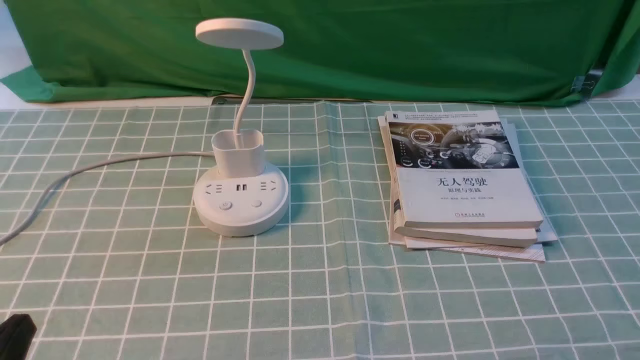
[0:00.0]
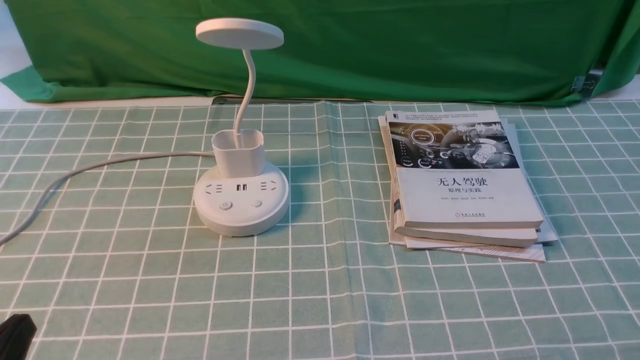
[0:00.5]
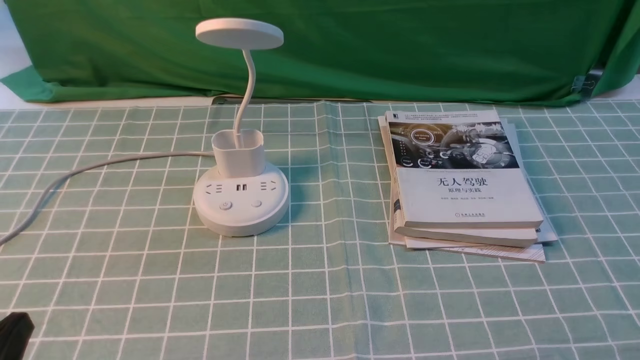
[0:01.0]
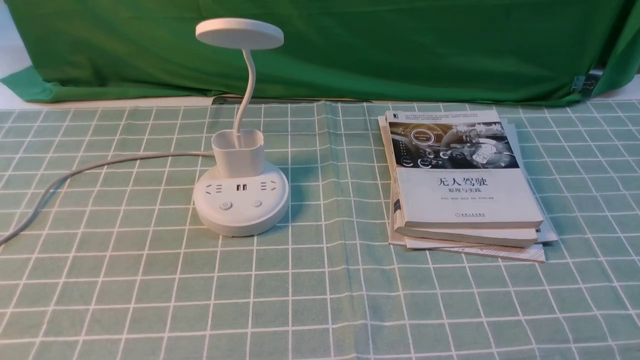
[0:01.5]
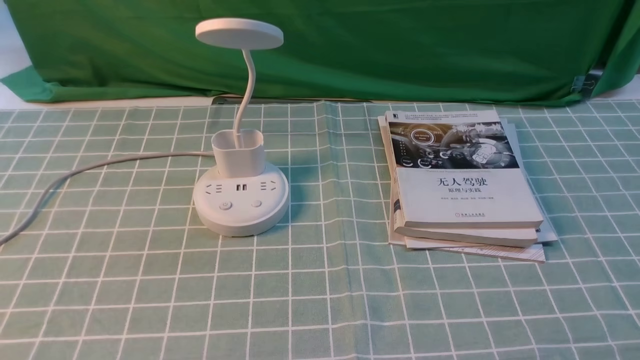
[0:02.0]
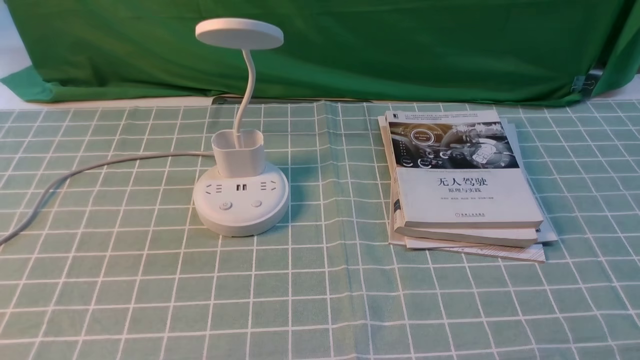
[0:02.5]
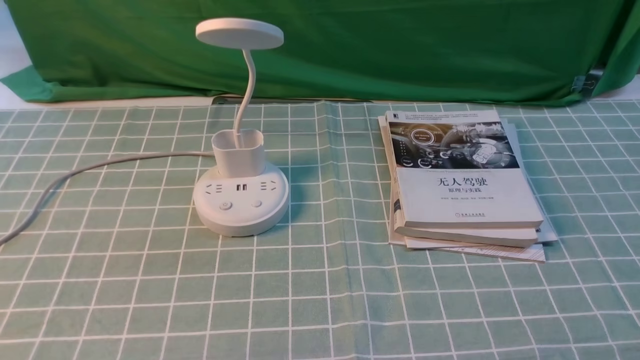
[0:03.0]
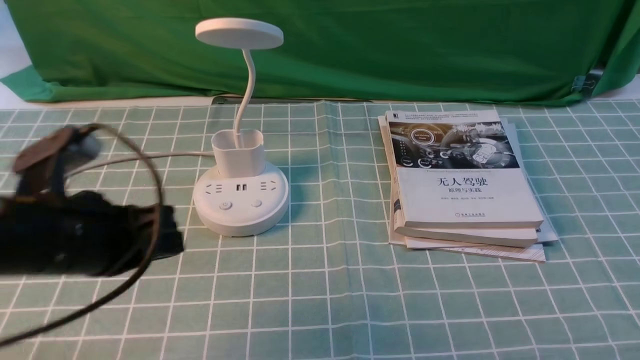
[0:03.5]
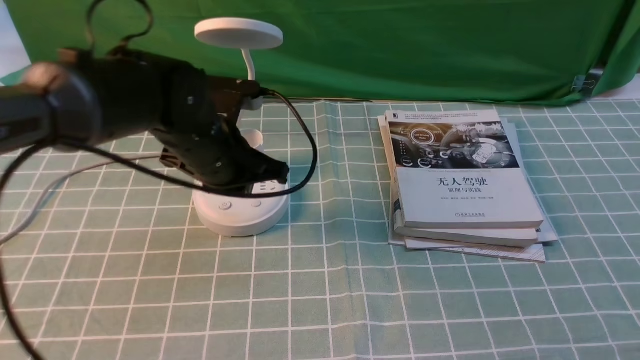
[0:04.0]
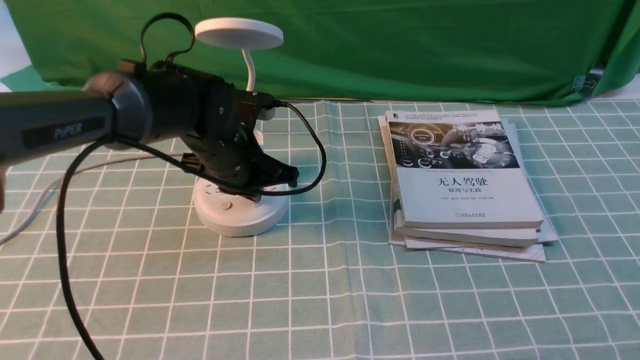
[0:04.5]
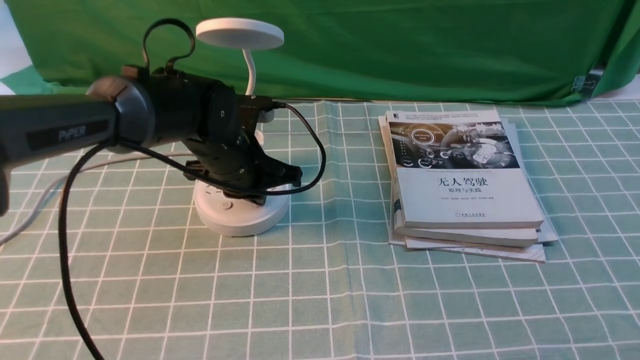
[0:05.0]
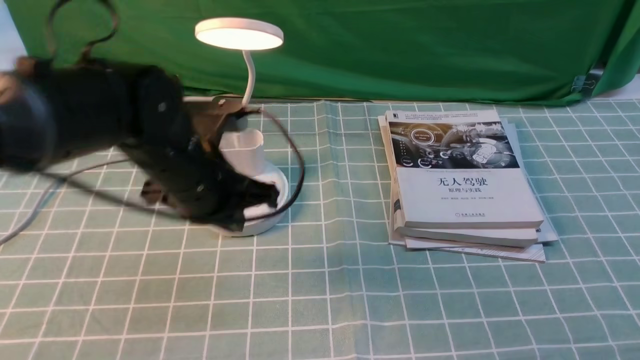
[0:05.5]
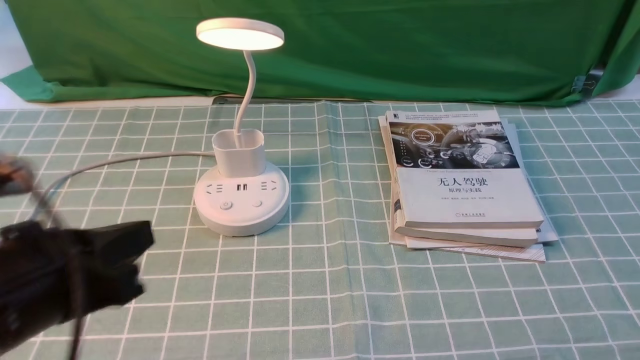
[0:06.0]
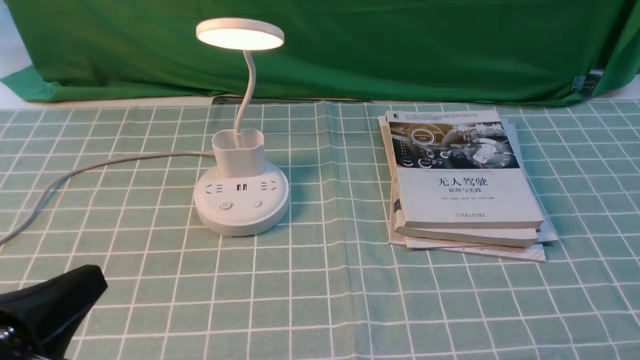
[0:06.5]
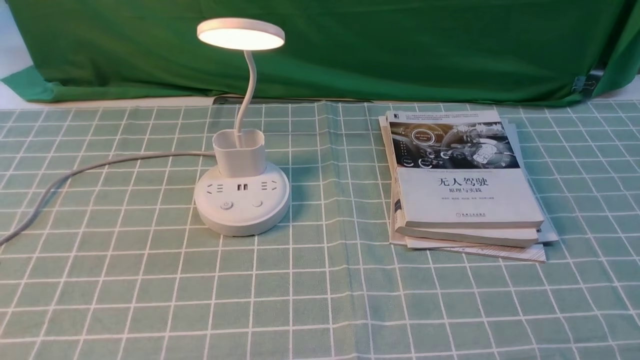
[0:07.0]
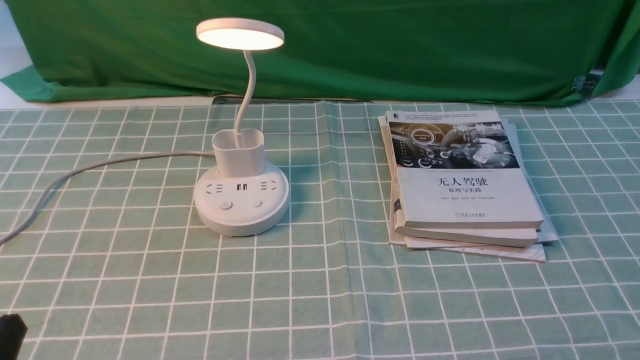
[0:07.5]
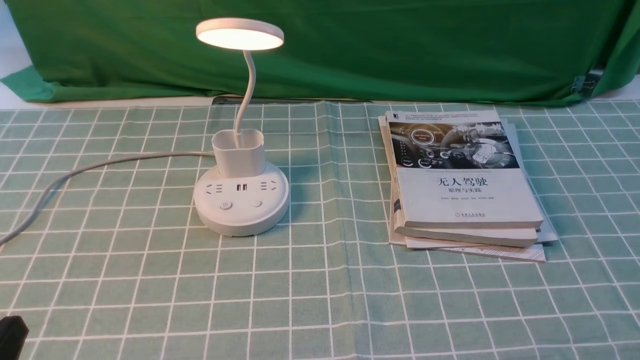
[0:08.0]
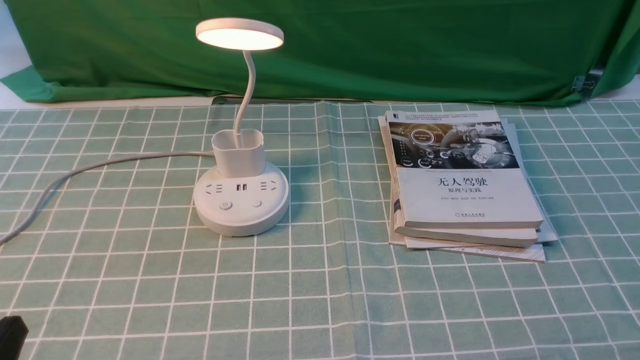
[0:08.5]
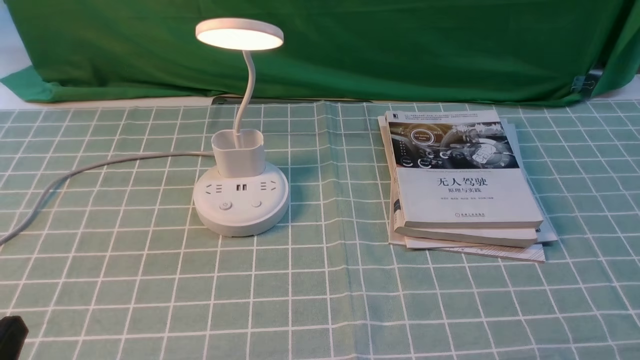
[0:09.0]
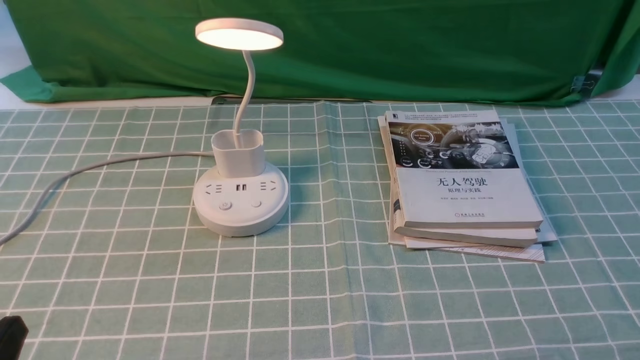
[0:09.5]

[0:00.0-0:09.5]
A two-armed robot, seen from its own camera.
Step, 0:00.0 to 0:05.0: use the left arm to press the button switch on the lamp holder.
0:02.0 to 0:04.0: The left gripper moves forward and to the right, some 35 cm.
0:05.5 to 0:07.5: The left gripper is displaced backward and to the left by some 30 cm.
0:07.5 to 0:09.5: Both grippers stay about where they are.

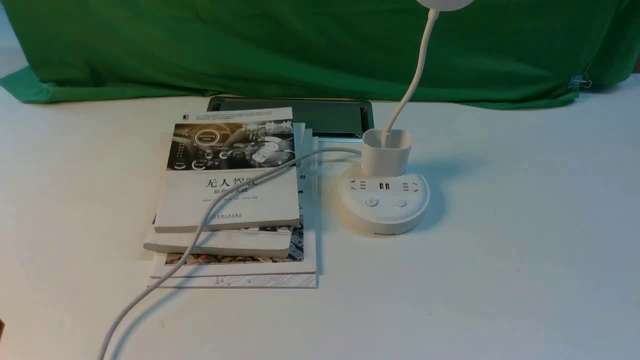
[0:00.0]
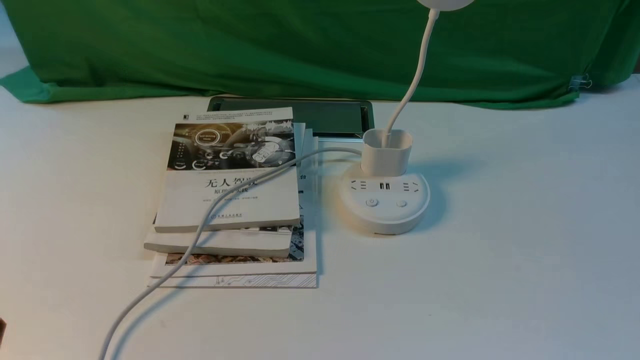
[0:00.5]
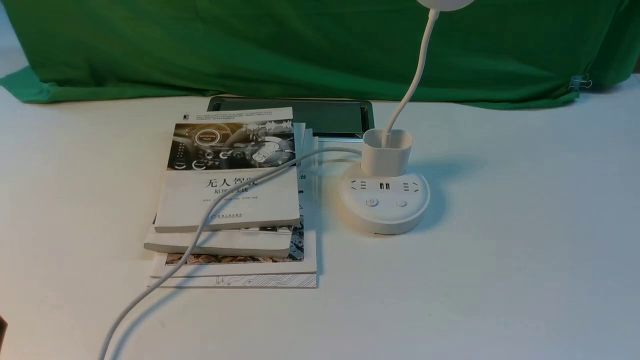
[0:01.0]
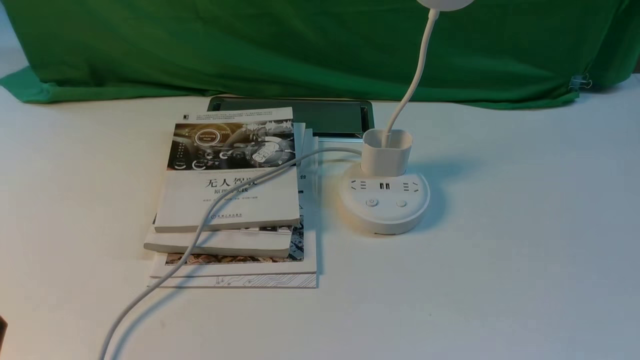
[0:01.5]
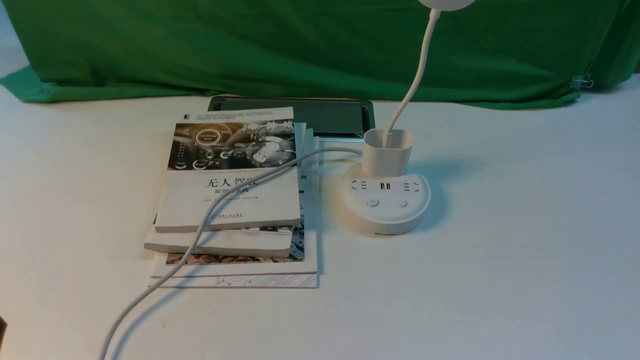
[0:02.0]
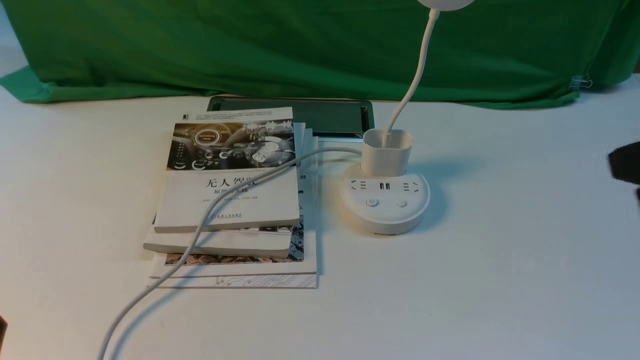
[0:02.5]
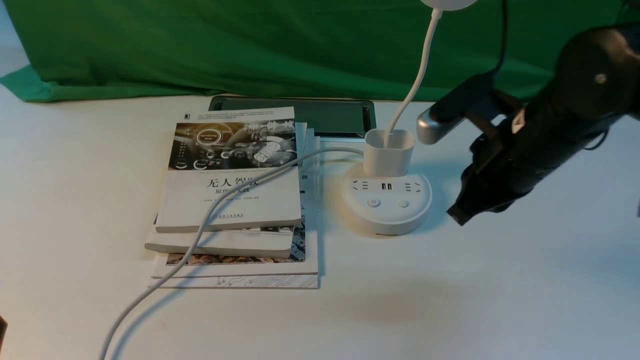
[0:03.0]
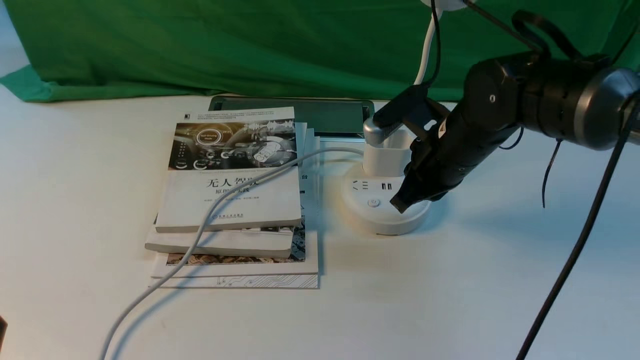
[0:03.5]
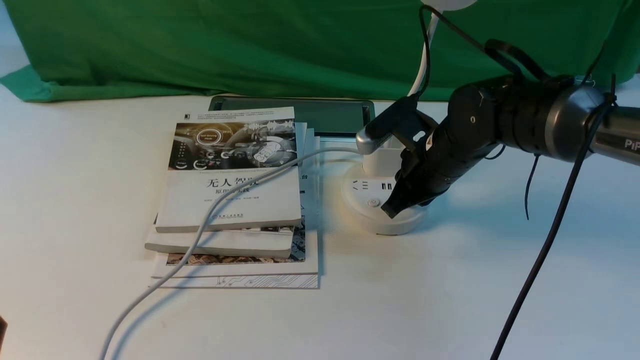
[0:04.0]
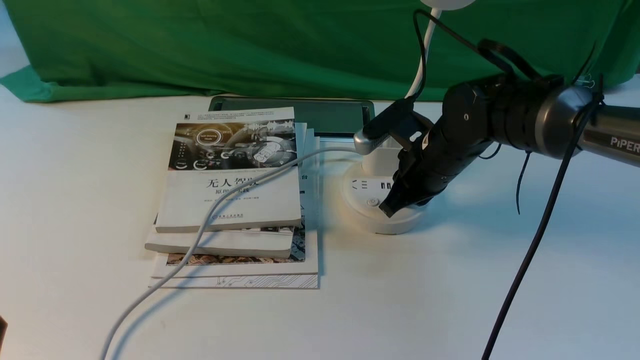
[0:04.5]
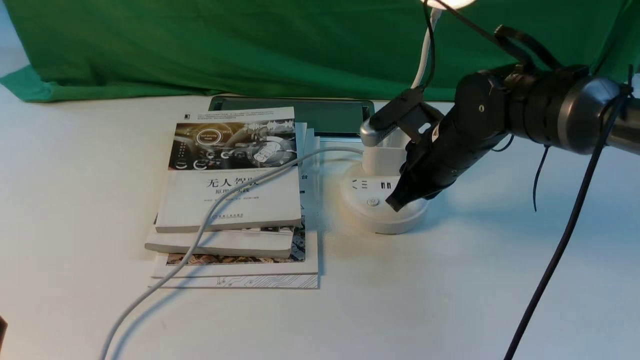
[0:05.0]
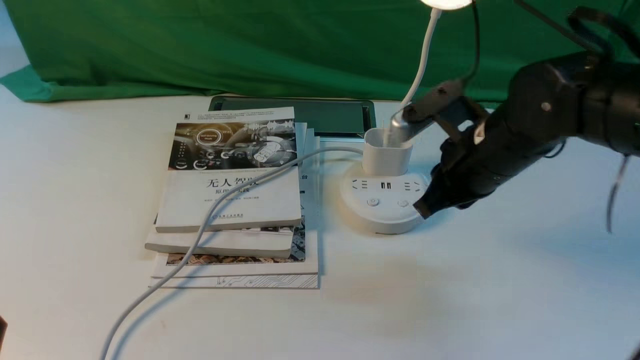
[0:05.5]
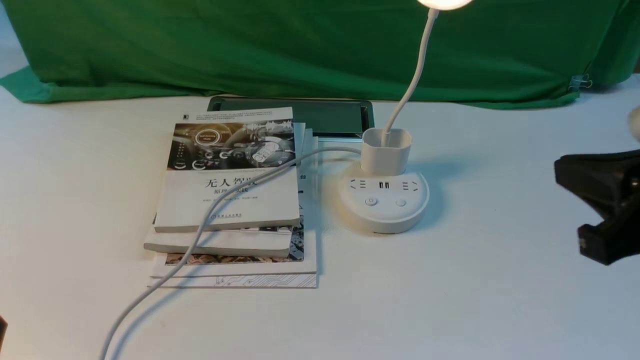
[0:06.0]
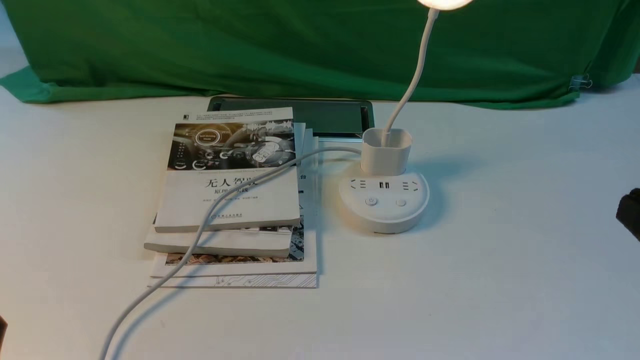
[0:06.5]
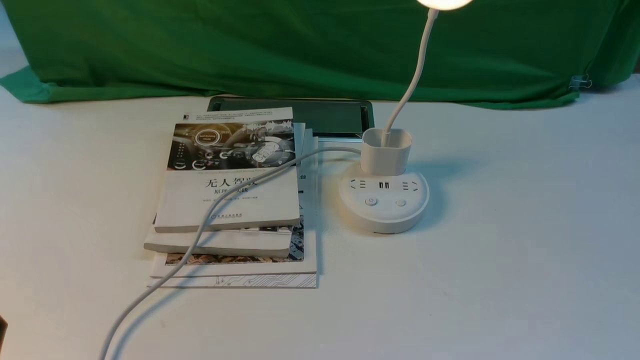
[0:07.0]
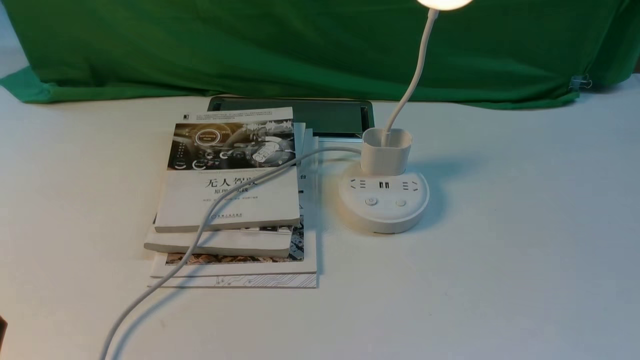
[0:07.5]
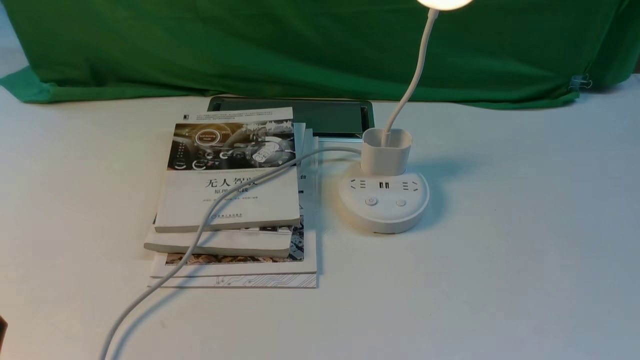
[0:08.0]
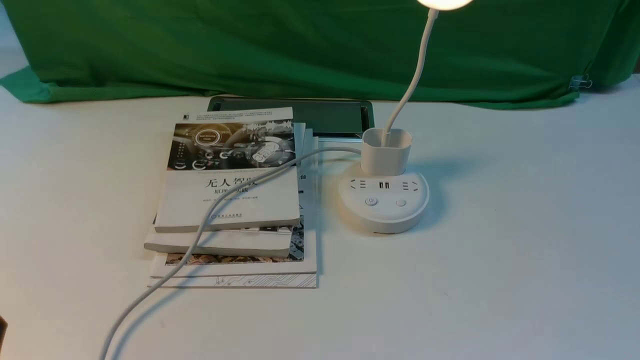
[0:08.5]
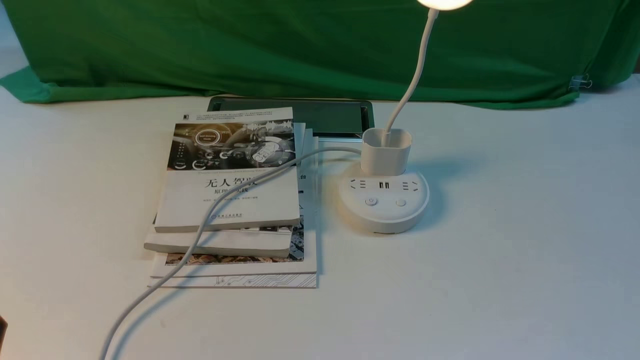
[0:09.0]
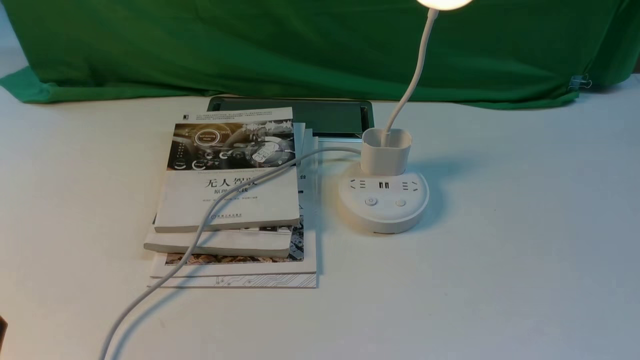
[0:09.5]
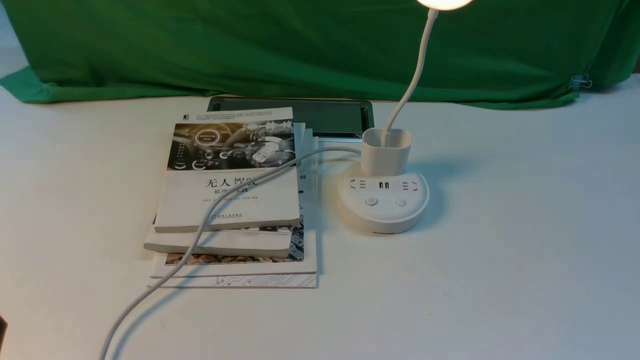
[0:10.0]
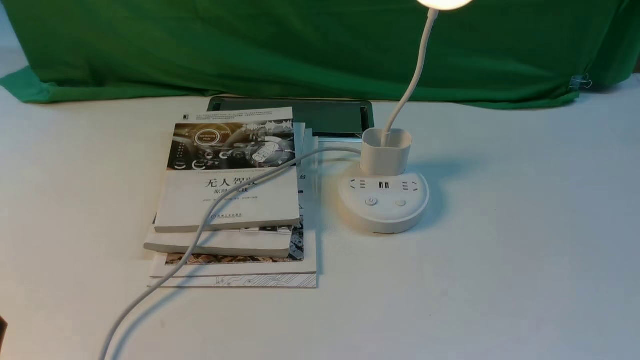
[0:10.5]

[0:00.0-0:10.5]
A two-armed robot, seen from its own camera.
Step, 0:00.0 to 0:05.5: use the right arm to press the button switch on the lamp holder.
0:02.0 to 0:04.0: The right gripper shifts some 40 cm forward and to the left, and closes its fingers.
0:04.0 to 0:06.5: The right gripper is displaced backward, to the right and upward by approximately 35 cm.
0:08.5 to 0:10.5: Both grippers stay put.
